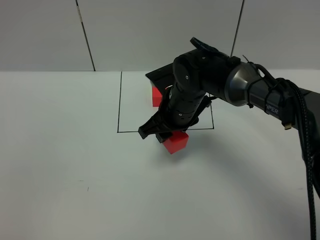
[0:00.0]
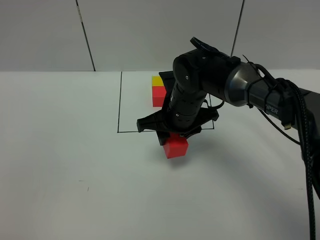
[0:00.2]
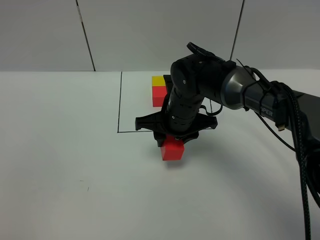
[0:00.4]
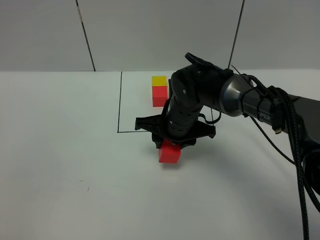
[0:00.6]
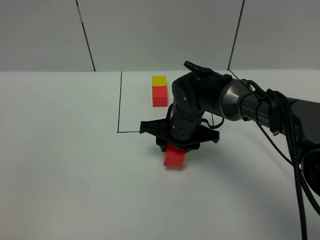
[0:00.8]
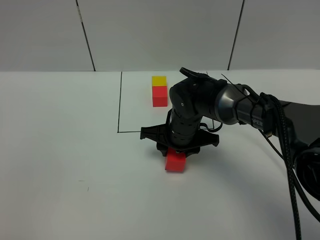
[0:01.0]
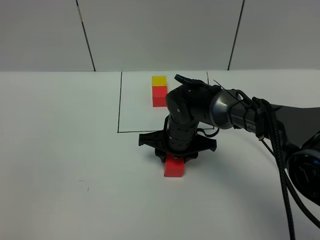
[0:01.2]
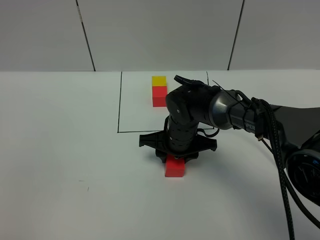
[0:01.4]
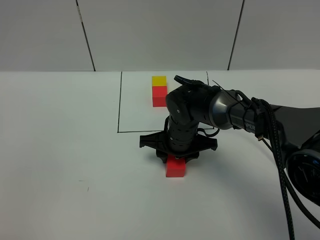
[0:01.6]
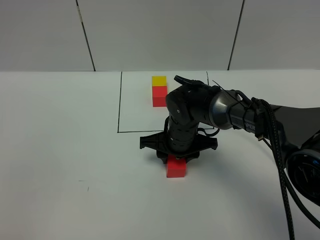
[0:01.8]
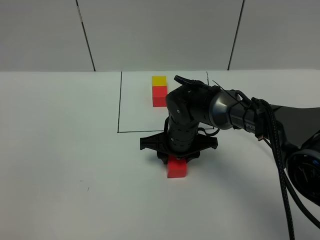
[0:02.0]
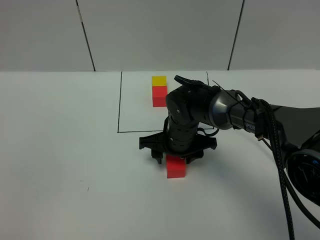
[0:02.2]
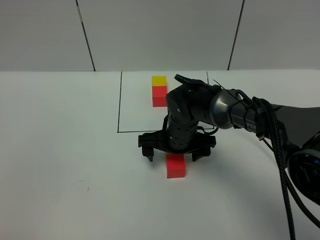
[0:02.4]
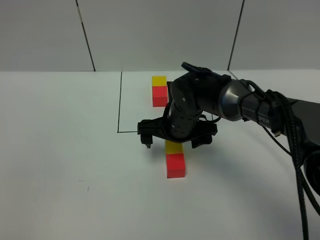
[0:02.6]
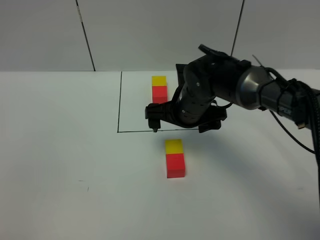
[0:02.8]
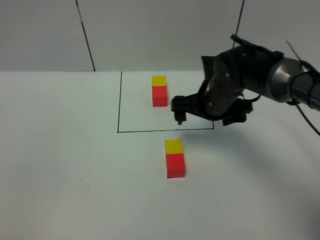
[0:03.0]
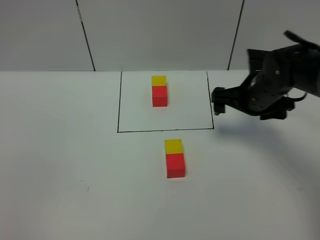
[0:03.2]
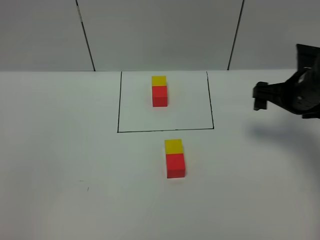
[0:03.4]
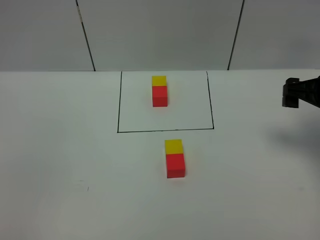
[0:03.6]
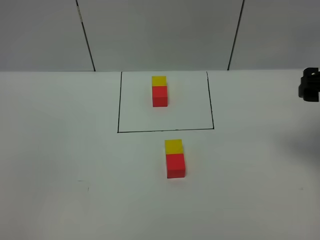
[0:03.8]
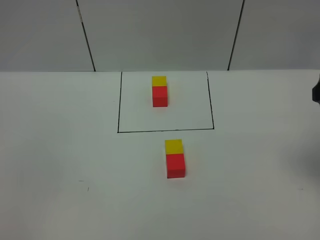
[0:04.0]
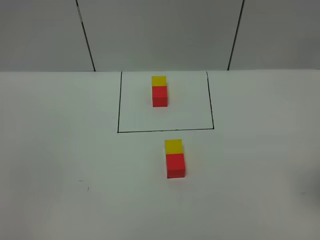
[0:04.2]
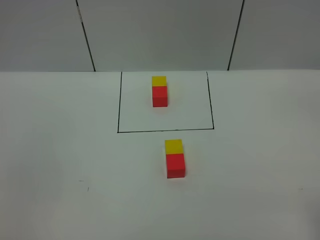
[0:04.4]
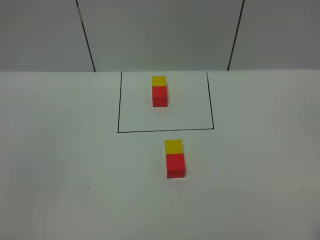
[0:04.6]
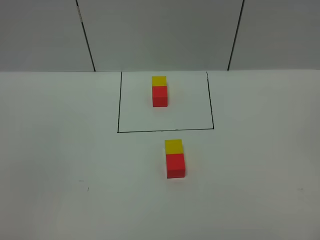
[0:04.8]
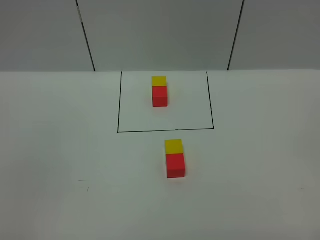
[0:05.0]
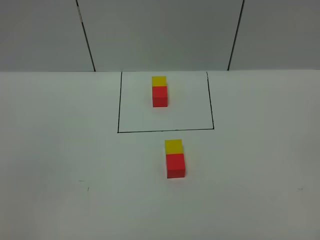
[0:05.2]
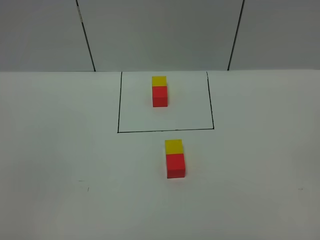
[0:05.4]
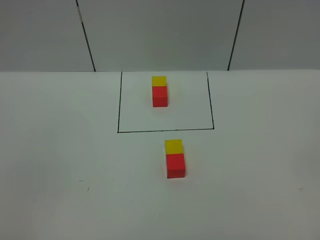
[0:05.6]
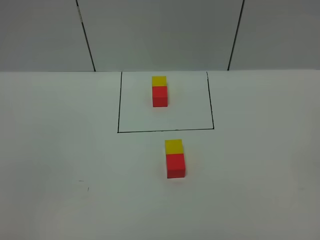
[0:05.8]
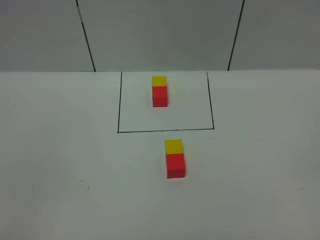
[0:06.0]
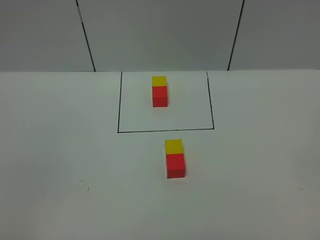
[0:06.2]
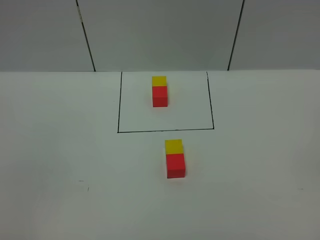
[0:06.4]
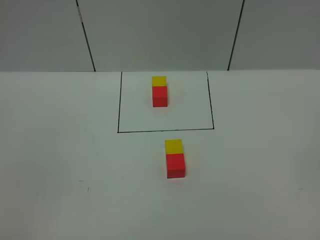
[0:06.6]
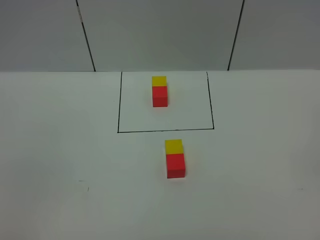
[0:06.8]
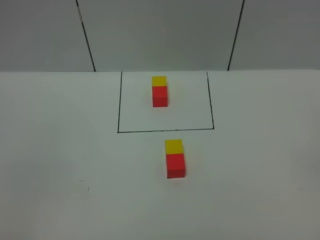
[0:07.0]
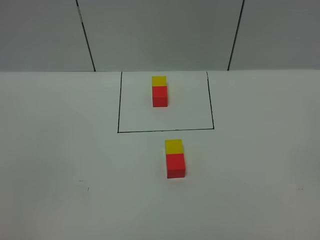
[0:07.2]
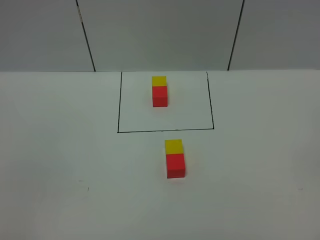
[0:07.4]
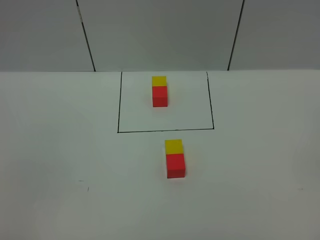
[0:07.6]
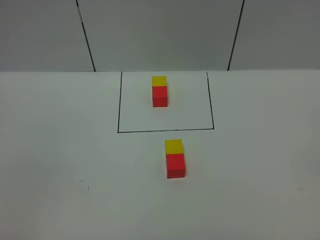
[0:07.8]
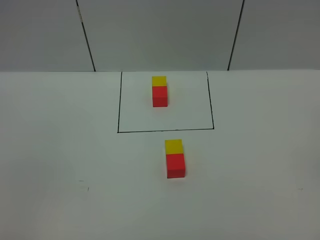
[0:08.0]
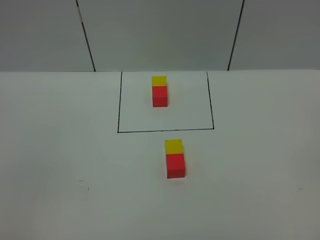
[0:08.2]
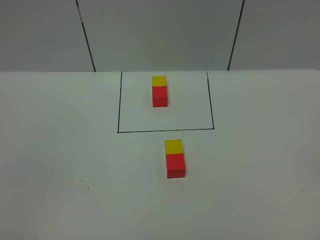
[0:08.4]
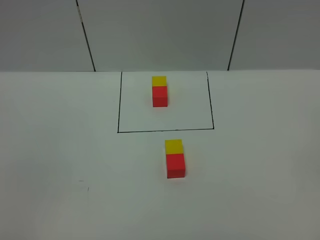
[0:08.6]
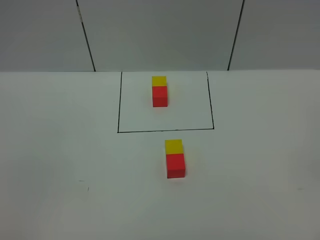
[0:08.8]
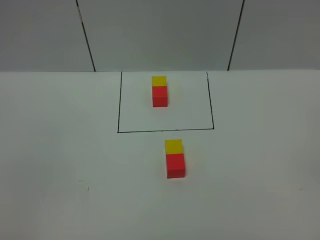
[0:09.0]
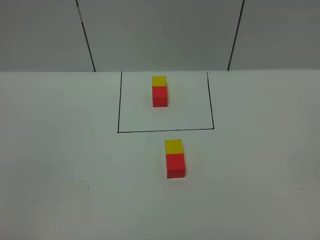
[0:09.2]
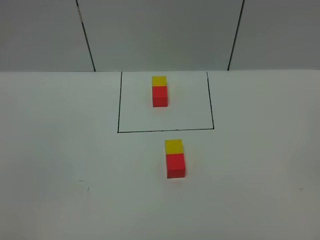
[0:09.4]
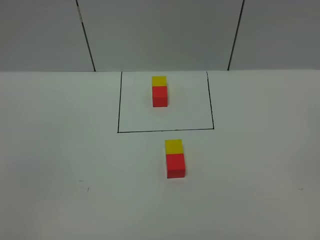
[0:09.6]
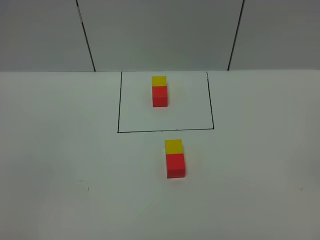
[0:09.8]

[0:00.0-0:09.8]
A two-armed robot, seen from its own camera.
Task of the whole recording: According to the building block template in front, assemble the scattered blocks together.
Step, 0:00.0 to 0:02.8: Adjust the pose of the building blocks.
0:00.0 to 0:01.4: The right gripper travels downward by roughly 5 cm.
0:01.4 to 0:02.8: The right gripper shifts roughly 5 cm upward, and opens its fingers.
0:02.8 to 0:04.2: The right gripper heads to the right, backward and upward, covering some 35 cm.
0:05.6 to 0:08.4: Neither gripper changes place.
